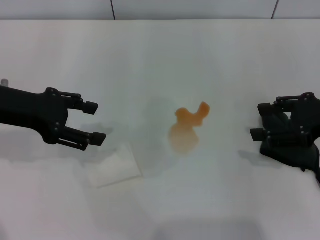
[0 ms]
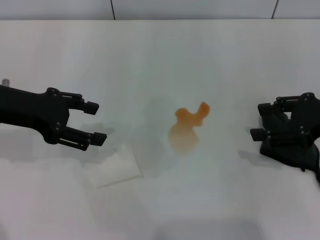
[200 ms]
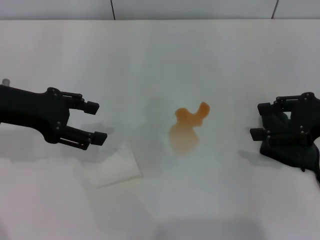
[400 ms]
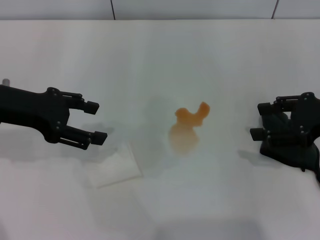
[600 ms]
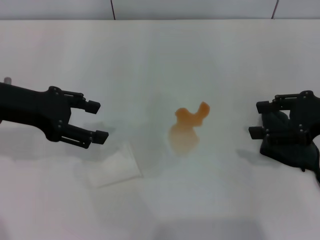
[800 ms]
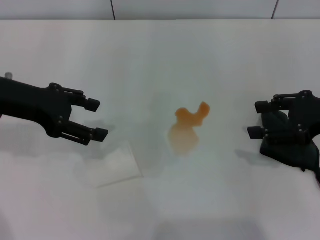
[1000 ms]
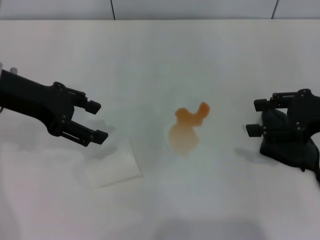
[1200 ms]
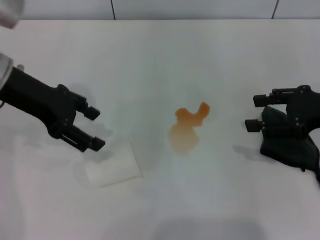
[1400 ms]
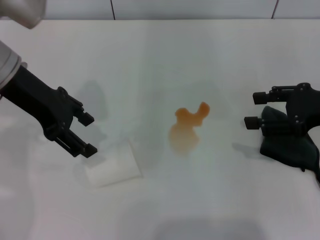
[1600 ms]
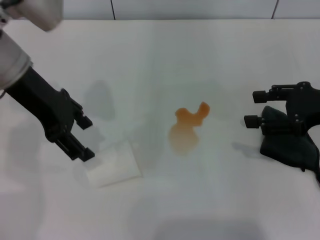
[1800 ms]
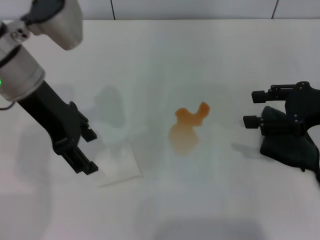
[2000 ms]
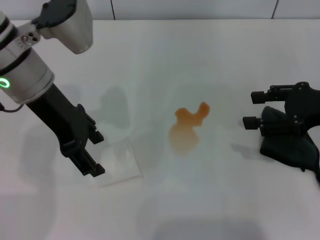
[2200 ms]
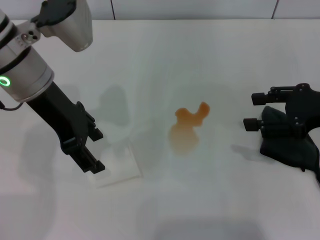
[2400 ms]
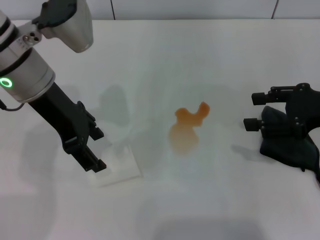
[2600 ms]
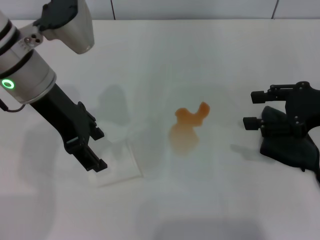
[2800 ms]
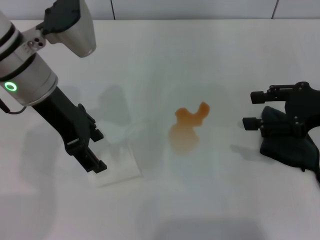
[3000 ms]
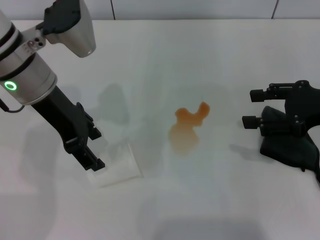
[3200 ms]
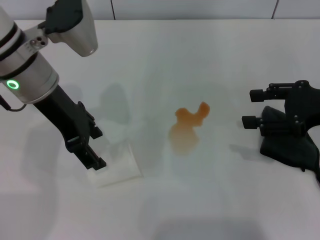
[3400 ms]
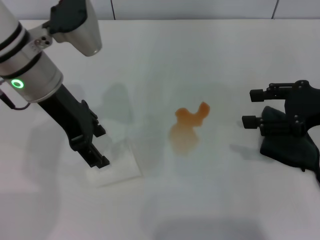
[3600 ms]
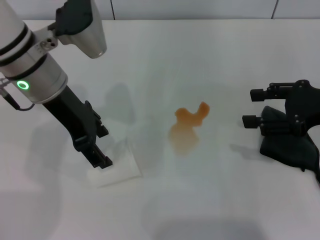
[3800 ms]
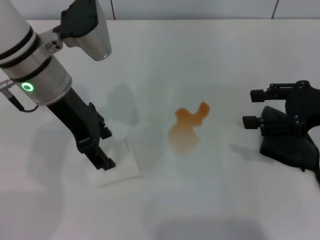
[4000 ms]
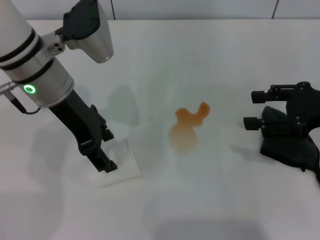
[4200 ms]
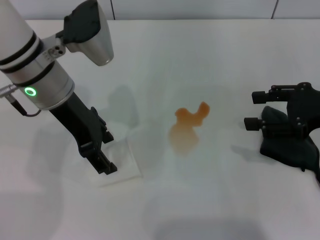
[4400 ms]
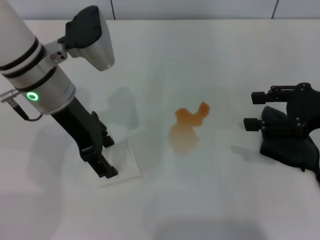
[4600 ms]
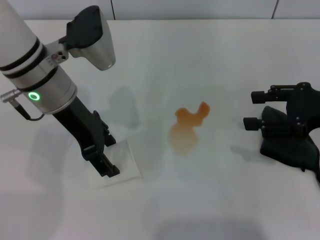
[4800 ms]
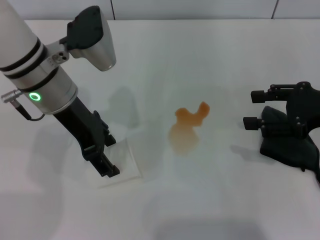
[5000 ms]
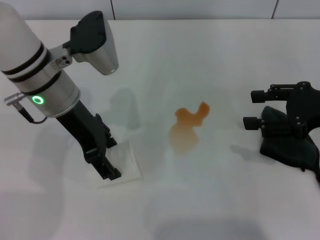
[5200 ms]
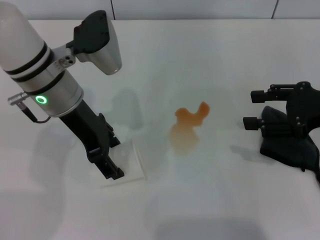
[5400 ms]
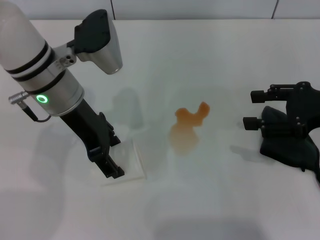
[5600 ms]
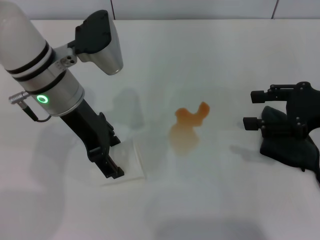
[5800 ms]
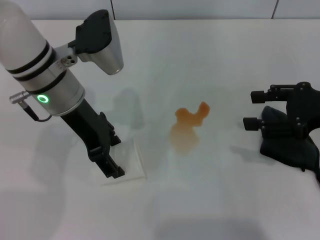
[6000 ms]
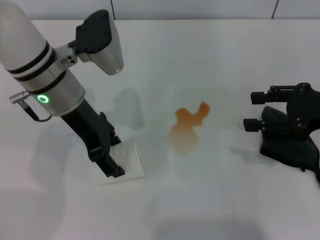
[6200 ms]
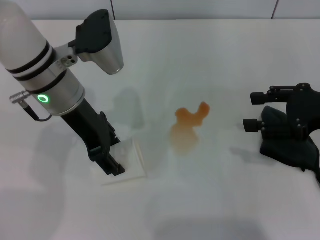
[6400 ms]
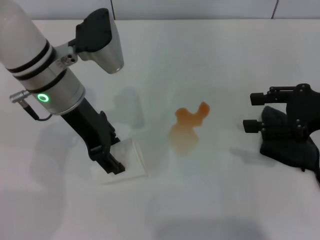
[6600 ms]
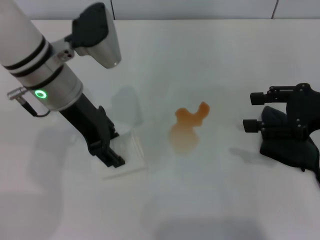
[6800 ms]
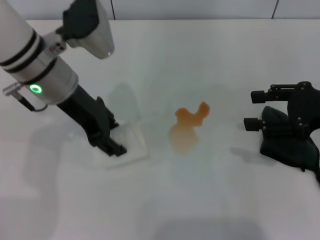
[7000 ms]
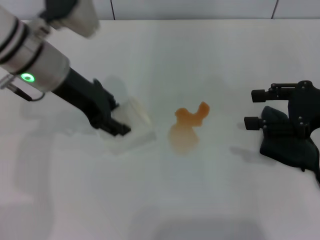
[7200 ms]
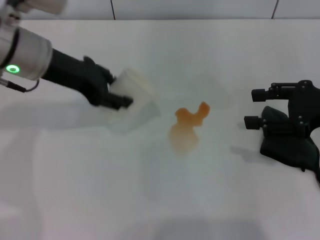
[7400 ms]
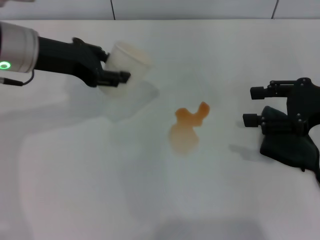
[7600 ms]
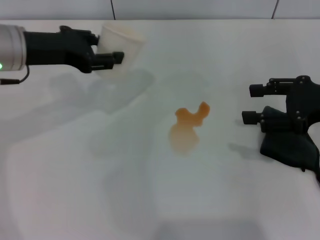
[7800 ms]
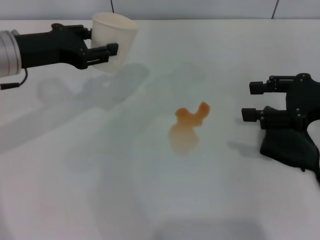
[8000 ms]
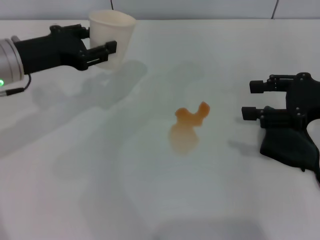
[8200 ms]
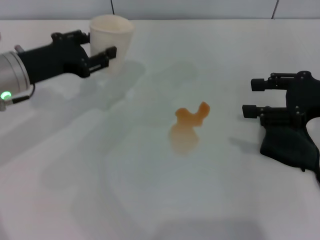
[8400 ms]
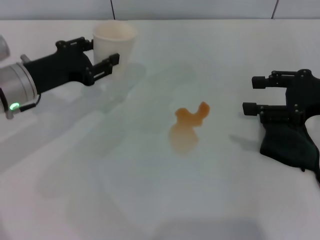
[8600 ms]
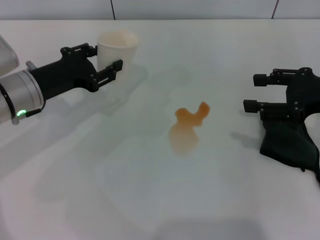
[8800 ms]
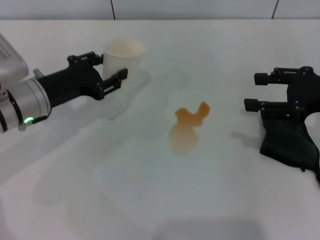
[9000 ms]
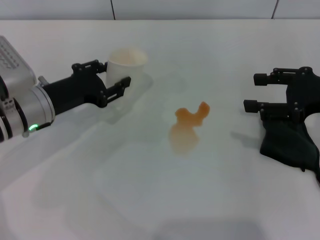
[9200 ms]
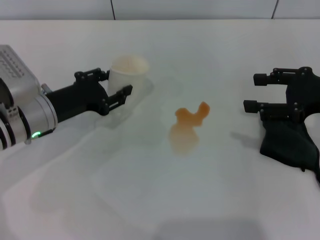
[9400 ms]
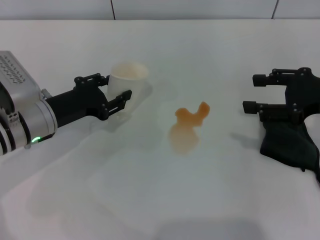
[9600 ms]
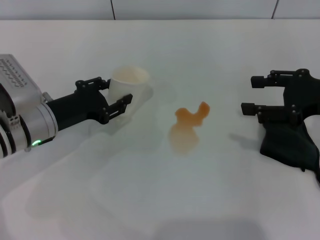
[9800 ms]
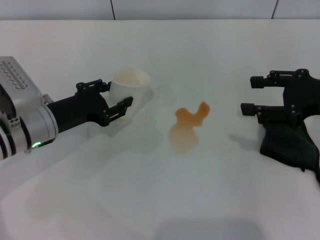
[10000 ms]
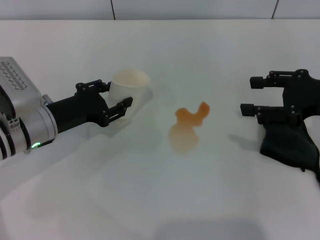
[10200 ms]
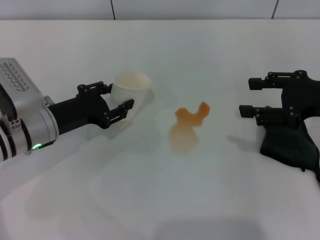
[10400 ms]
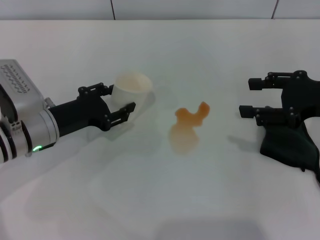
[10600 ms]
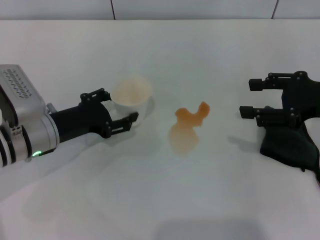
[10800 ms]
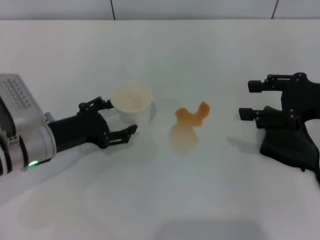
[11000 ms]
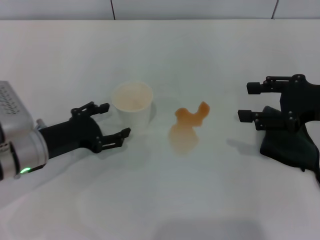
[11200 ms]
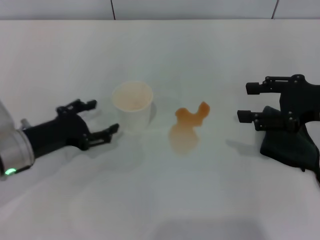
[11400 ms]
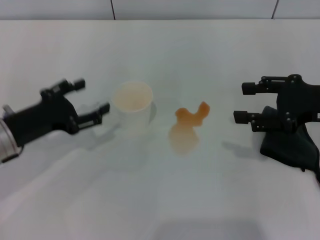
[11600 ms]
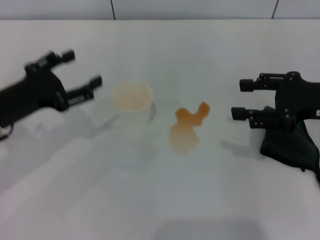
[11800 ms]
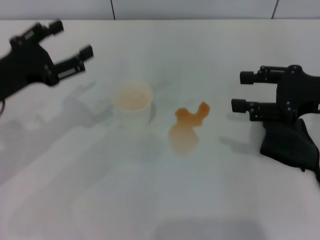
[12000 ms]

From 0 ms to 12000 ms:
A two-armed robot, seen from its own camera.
Step, from 0 ms to 5400 ms: Grasp the paper cup with the left gripper.
Step, from 5600 ms to 11600 ms: Stand the paper cup upright with the left gripper.
From 0 ms to 1600 ms: The left gripper goes roughly 5 cm to the right.
From 1600 ms to 3000 ms: The grippers stay close to where they were, moving slightly.
From 3000 ms to 6000 ms: The grippers stay close to where they were, moving slightly.
From 6000 ms to 7600 ms: The left gripper is displaced to the left by some 5 cm, and closes its fingers.
From 7600 ms to 9000 ms: The left gripper is displaced downward by roughly 10 cm.
From 9000 ms to 10400 ms: The grippers stay close to where they were, moving slightly.
From 10400 ms to 12000 ms: The left gripper travels upward and to the left by approximately 10 cm, and opens its fingers.

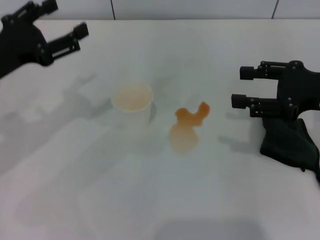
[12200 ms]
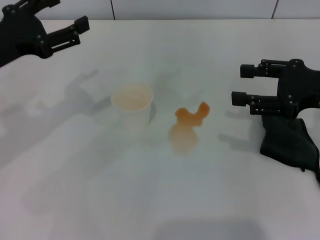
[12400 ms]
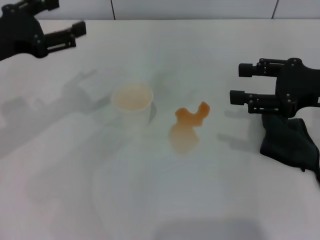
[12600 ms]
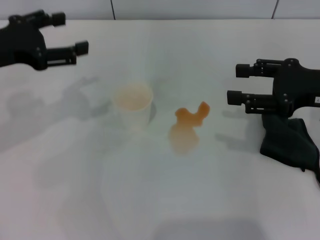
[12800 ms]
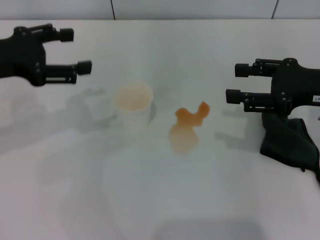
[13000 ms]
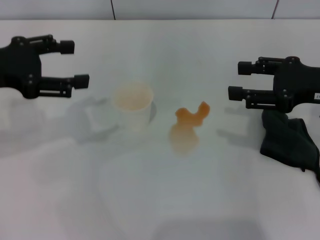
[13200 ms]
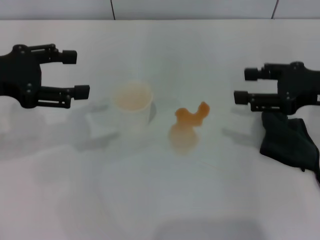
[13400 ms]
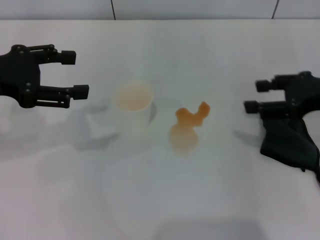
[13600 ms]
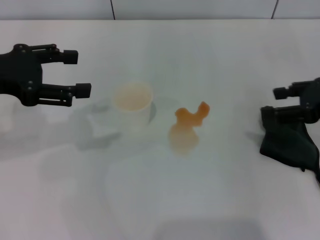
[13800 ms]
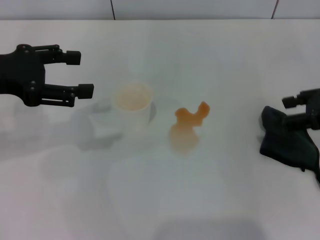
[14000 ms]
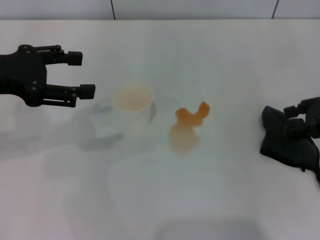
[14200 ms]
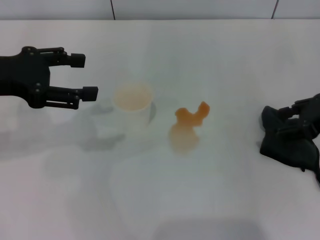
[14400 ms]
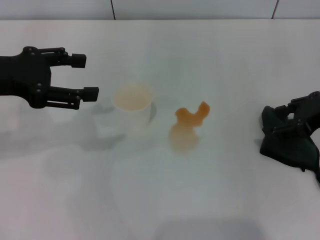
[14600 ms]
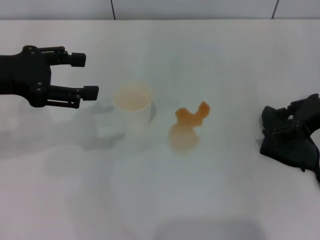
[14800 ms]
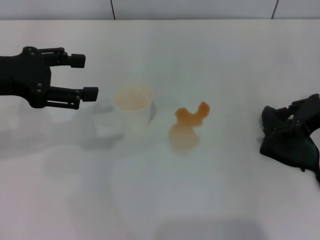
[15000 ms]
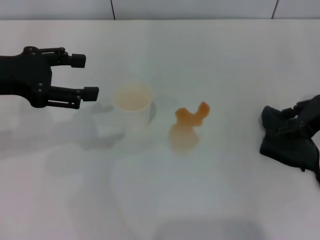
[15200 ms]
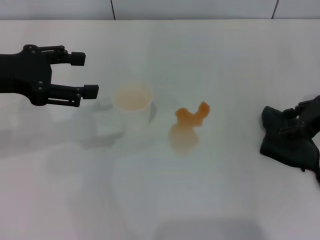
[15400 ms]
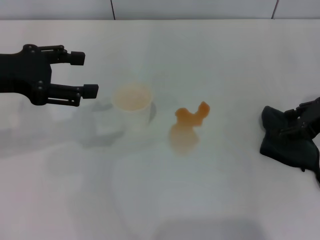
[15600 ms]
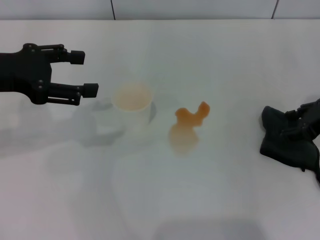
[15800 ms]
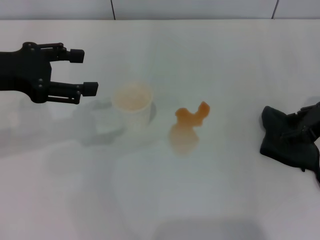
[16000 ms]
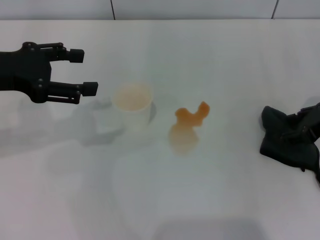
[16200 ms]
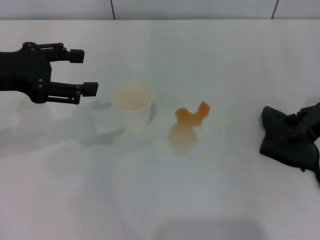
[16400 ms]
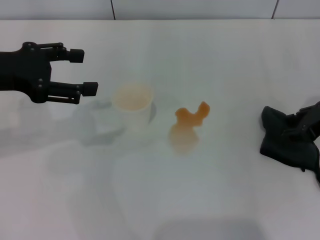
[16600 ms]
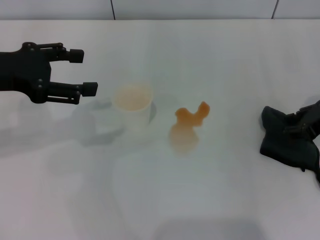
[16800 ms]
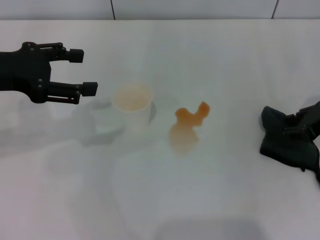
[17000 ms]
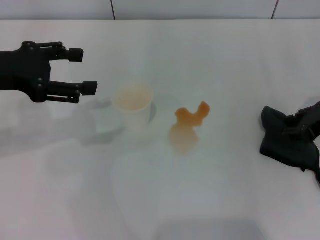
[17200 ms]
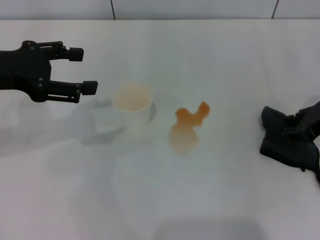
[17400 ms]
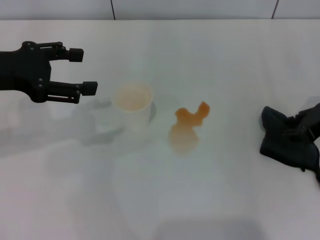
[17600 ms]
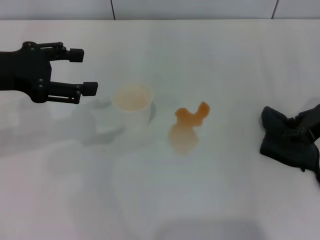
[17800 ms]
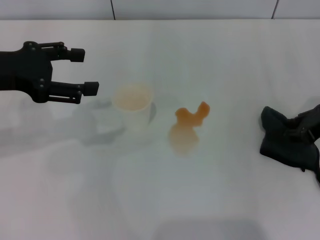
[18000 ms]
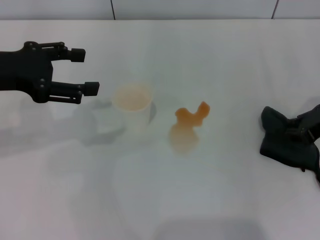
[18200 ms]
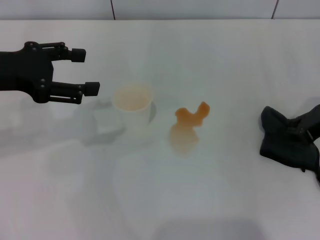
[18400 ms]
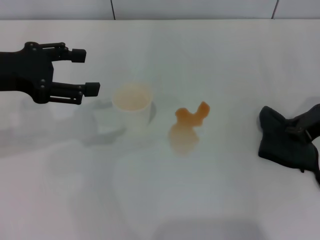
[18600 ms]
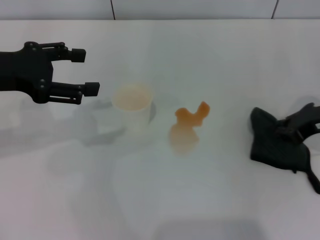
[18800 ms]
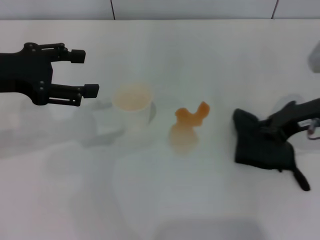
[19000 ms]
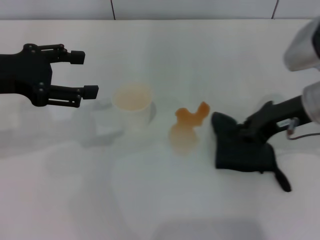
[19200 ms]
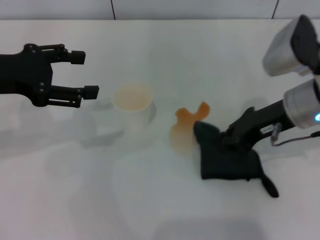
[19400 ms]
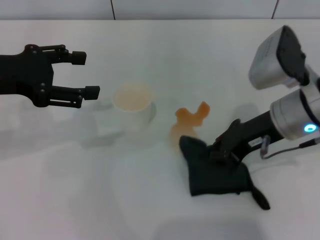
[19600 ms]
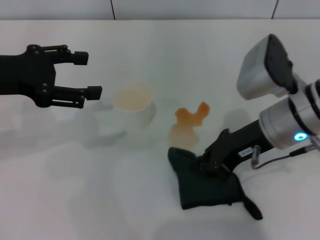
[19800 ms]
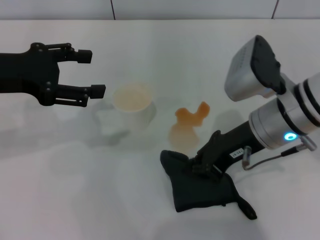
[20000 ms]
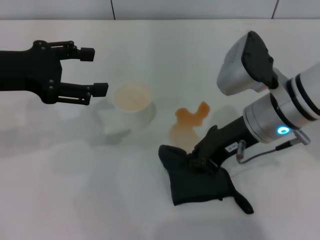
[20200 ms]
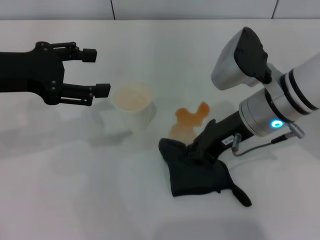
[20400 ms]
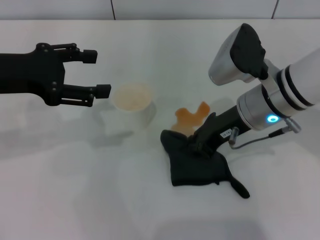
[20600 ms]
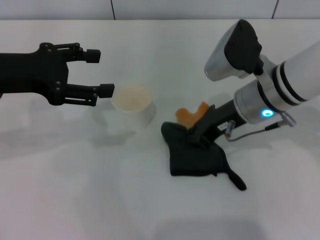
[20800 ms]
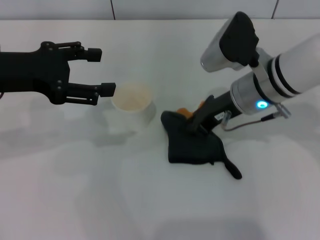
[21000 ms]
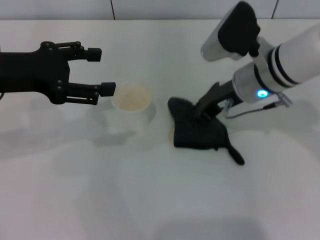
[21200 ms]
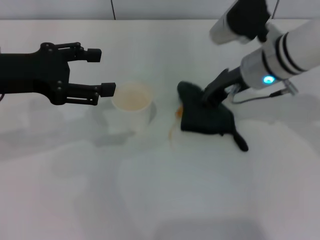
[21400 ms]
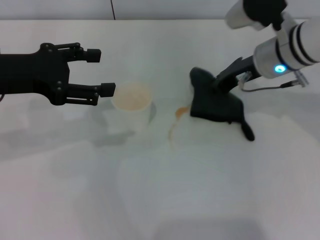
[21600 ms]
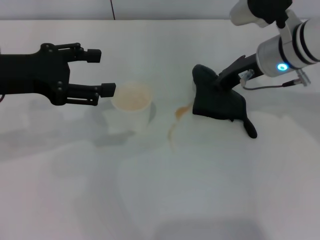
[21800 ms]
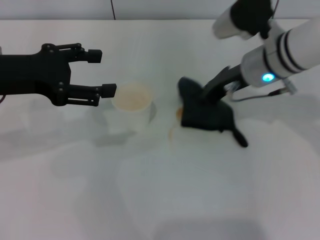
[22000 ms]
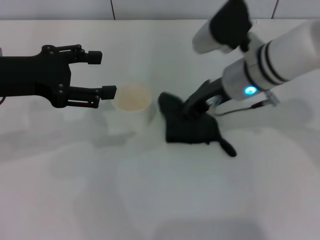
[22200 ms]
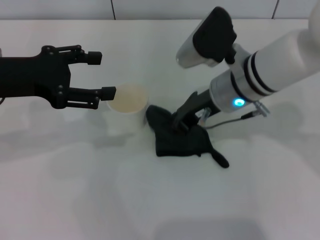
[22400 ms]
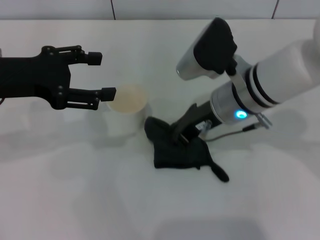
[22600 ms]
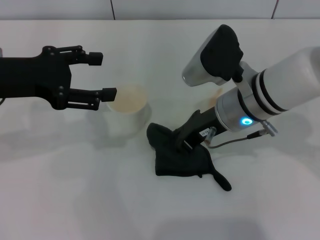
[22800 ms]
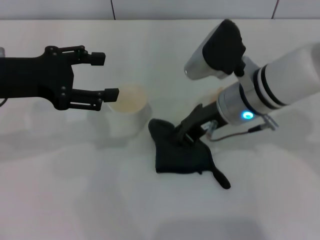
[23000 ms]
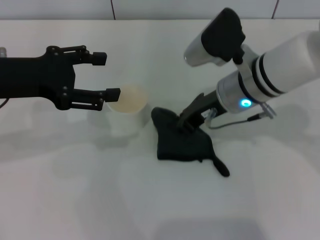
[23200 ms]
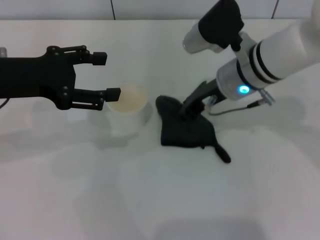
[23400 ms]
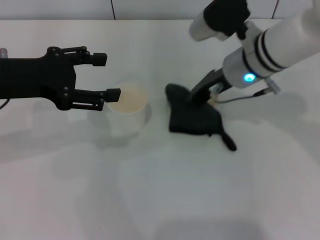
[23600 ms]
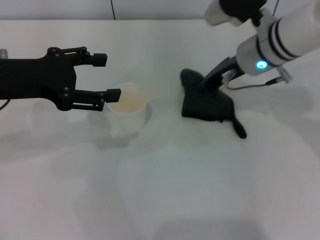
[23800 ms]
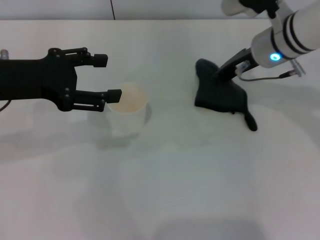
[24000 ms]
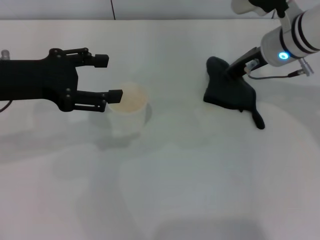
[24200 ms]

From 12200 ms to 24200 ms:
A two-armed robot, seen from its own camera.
Step, from 12200 ms to 17800 ms: Grasp the rag with the right gripper.
From 12200 ms to 13800 ms: The left gripper heads upward, covering roughly 5 cm.
From 13800 ms to 15200 ms: The grippers move only a little.
From 15200 ms to 16600 ms: Neither gripper changes place.
From 18200 ms to 19800 ms: The right gripper shifts some 15 cm to the left, and closes its fingers.
From 19800 ms to 21200 ms: The right gripper moves forward, roughly 5 cm.
From 21200 ms to 22600 ms: There are only small adjustments of the grippers.
From 22600 ms to 24200 ms: The right gripper shifts roughly 10 cm forward and to the right.
